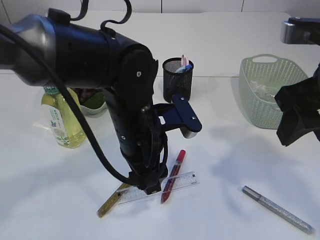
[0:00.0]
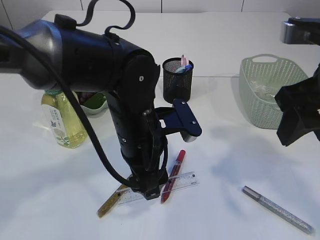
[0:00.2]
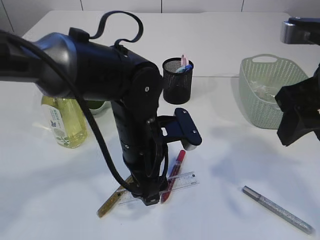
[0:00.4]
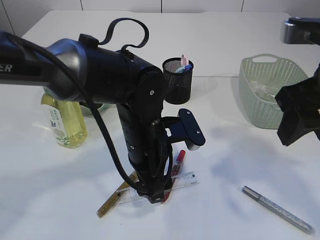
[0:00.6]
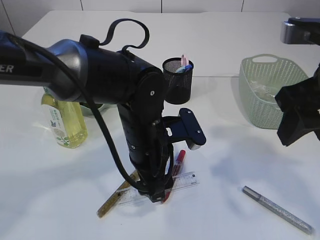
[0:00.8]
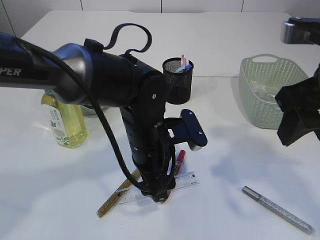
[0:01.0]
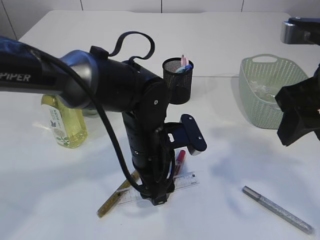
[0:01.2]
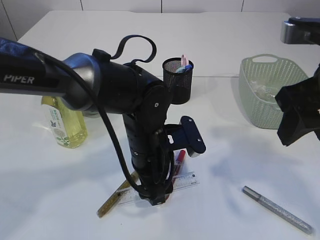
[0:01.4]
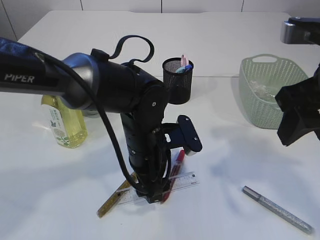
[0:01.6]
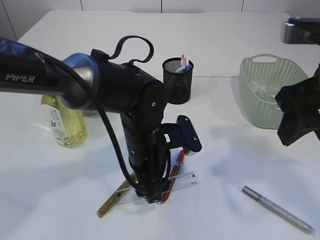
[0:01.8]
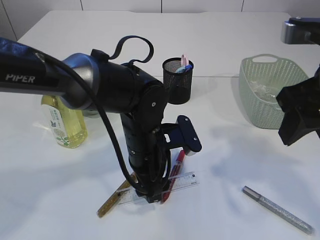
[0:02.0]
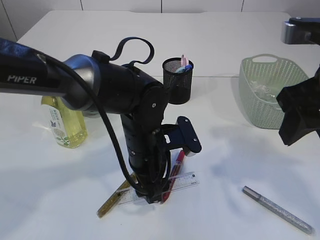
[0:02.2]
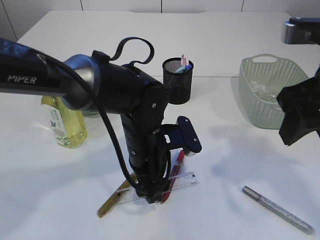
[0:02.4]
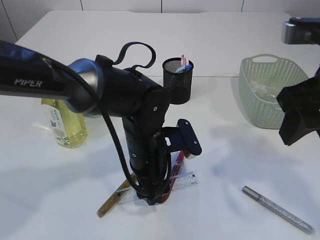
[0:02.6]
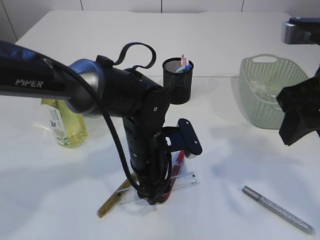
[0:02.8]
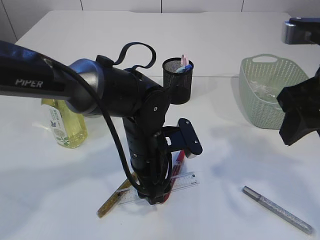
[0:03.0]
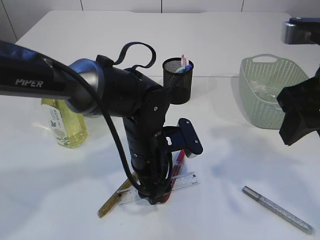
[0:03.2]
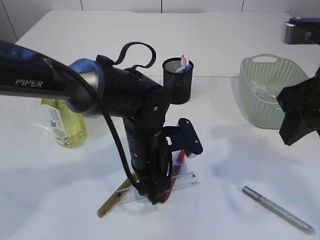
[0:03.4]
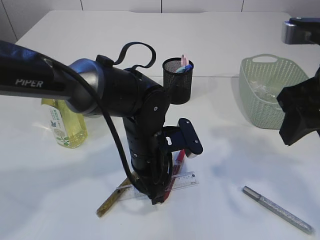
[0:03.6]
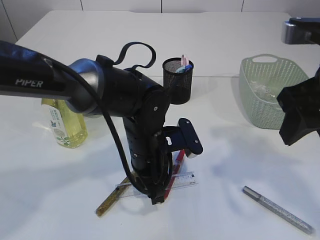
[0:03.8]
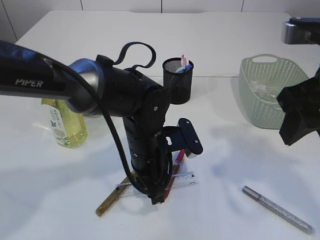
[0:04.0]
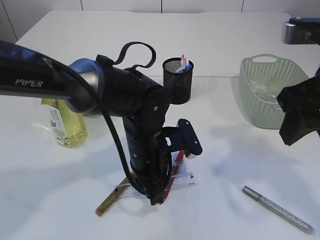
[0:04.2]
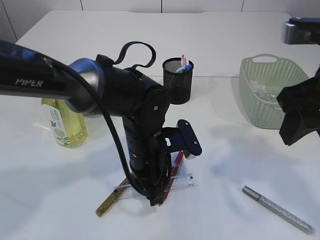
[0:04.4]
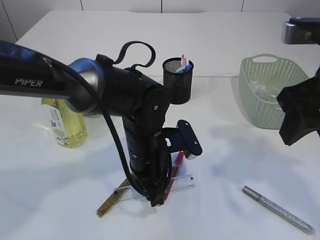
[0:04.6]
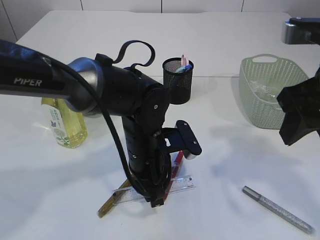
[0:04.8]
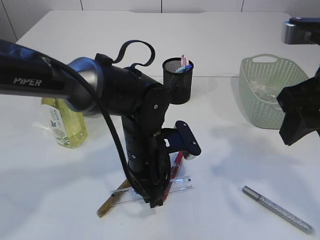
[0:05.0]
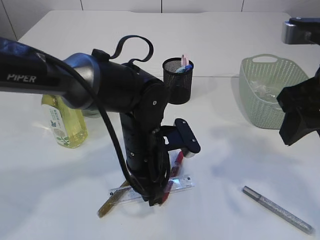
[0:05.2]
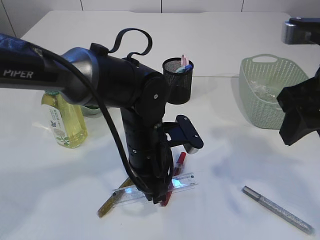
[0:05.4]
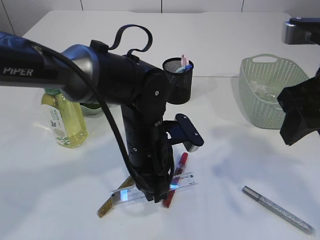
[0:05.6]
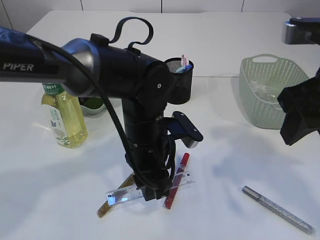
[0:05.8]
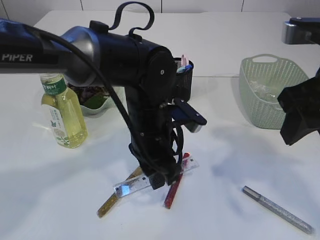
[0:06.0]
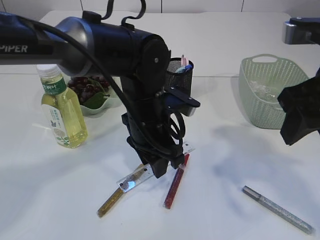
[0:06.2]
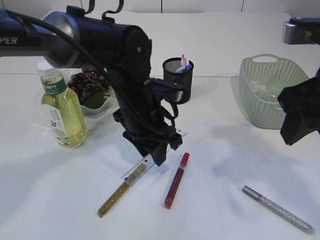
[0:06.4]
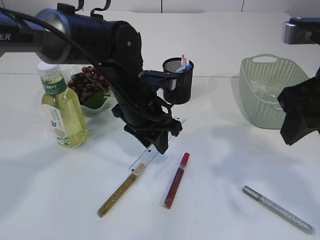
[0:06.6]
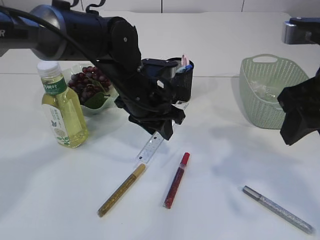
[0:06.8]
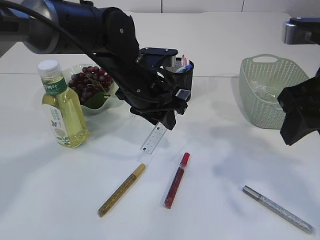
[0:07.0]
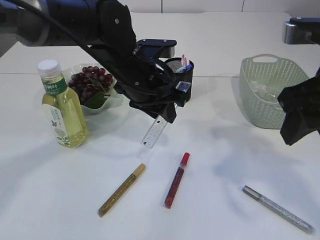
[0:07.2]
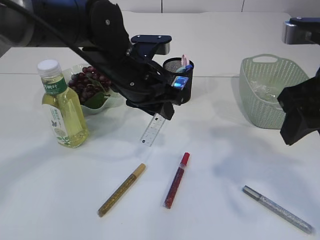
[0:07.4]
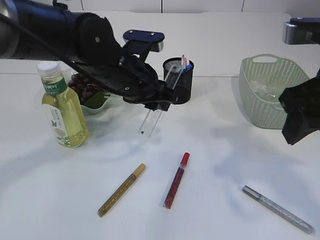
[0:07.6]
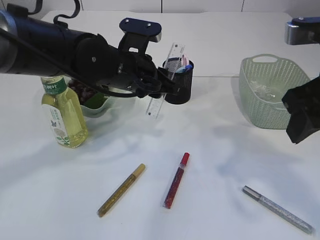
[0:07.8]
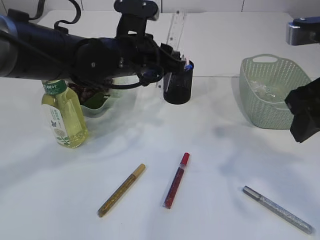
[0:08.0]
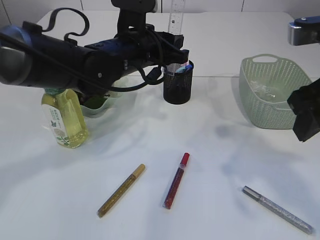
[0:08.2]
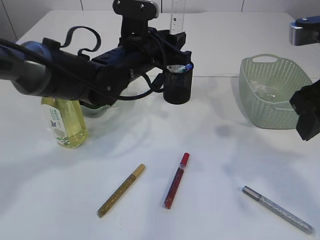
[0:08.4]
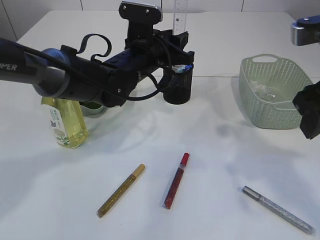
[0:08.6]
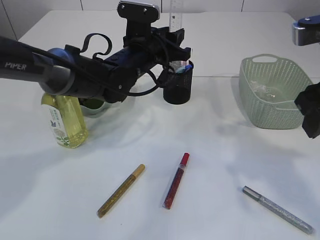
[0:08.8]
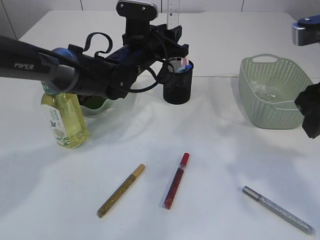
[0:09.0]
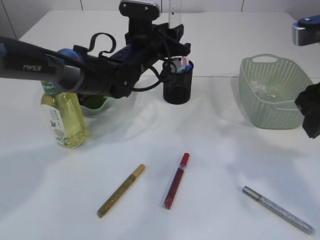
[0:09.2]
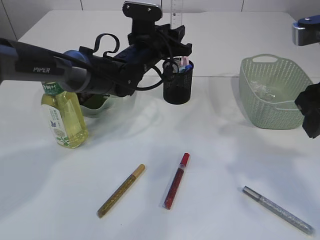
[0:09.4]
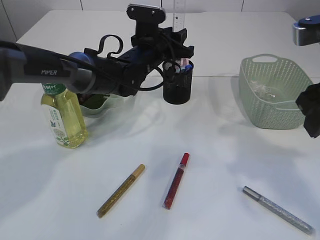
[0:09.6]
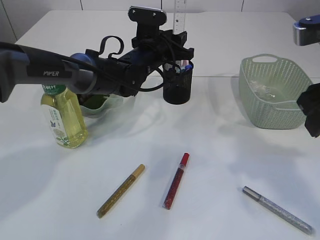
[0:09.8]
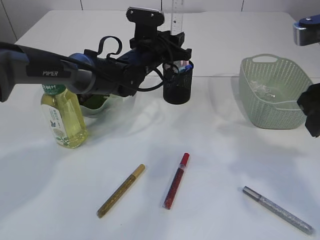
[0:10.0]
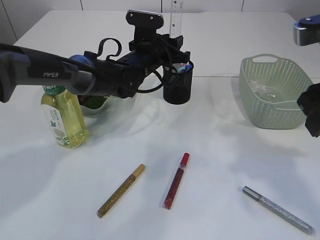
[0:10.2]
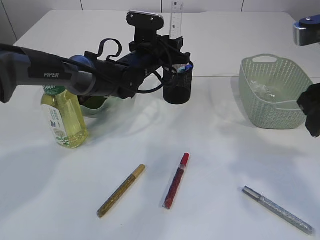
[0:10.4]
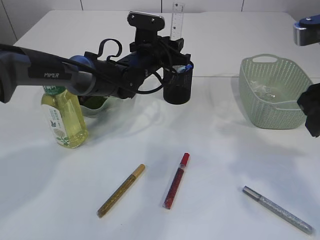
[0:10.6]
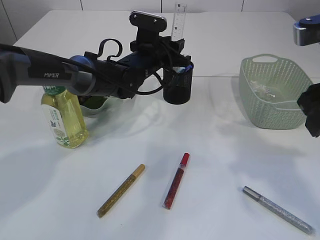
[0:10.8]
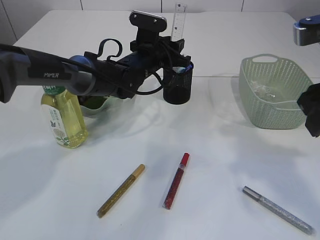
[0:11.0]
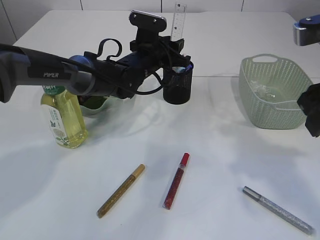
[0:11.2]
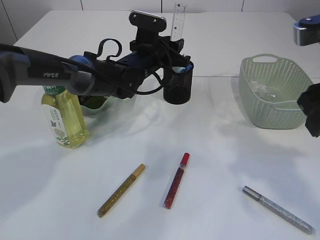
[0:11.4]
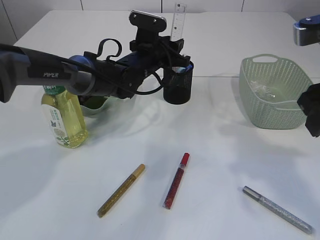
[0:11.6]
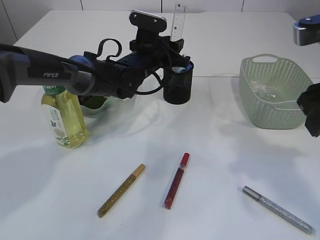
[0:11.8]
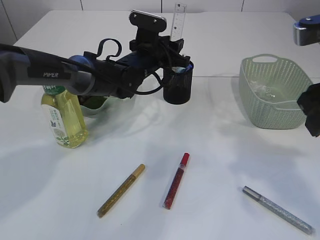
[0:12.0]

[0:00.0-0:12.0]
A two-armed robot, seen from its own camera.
Step, 0:00.0 to 0:06.0: pick up the ruler.
0:00.0 to 0:01.6: The left gripper goes some 5 cm downward.
0:01.6 to 0:03.0: Both grippers stay about where they are.
0:03.0 to 0:04.4: The left gripper closes its fingers.
0:04.4 to 0:06.0: The grippers make only small movements.
0:06.0 to 0:07.6: The left gripper moves forward and upward, some 10 cm.
0:07.6 to 0:09.0: The left gripper shifts roughly 10 cm forward.
0:09.0 to 0:10.4: The grippers stay close to where they were, moving slightly.
0:10.4 to 0:12.0: Both grippers stay about where they are.

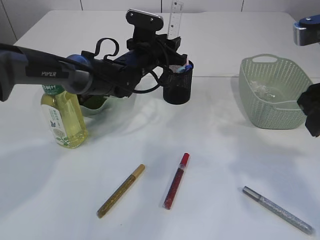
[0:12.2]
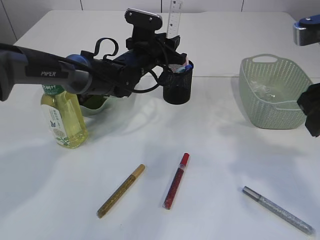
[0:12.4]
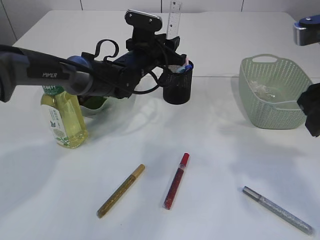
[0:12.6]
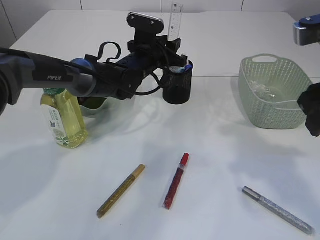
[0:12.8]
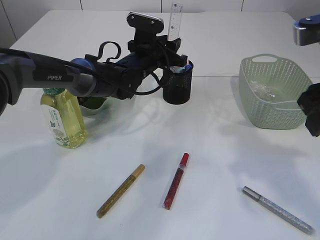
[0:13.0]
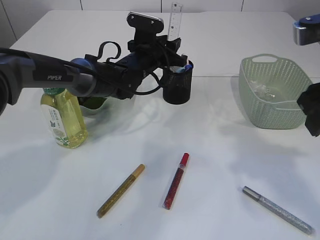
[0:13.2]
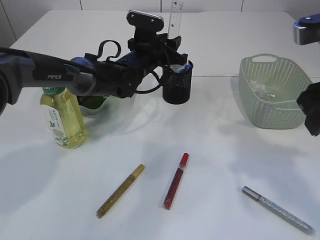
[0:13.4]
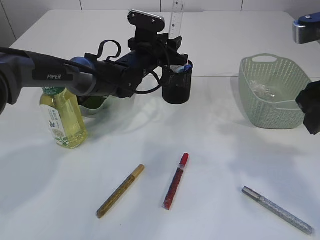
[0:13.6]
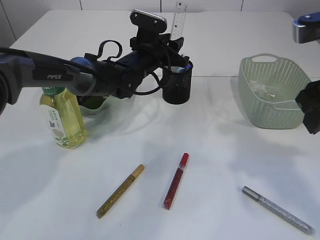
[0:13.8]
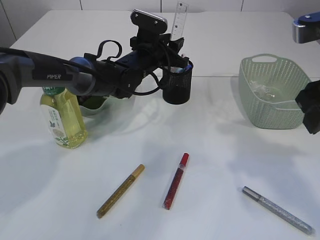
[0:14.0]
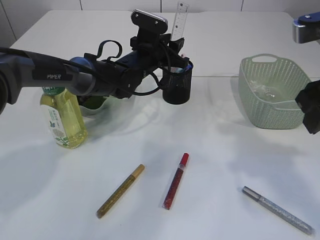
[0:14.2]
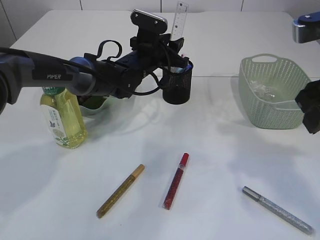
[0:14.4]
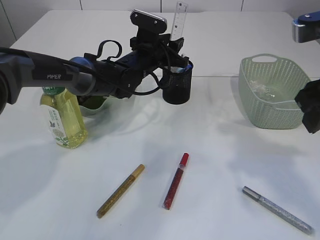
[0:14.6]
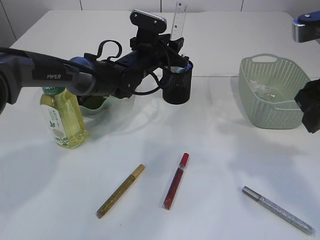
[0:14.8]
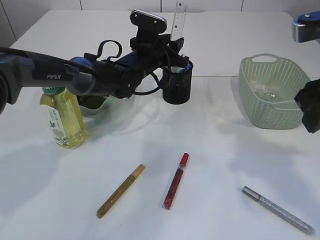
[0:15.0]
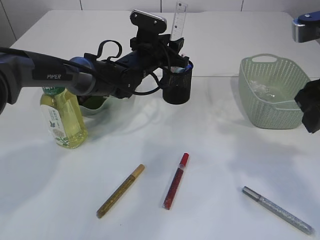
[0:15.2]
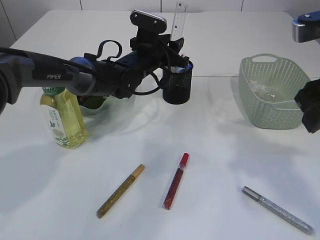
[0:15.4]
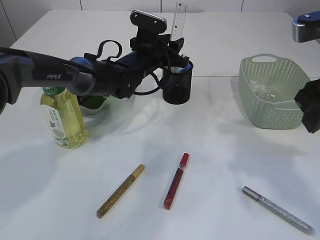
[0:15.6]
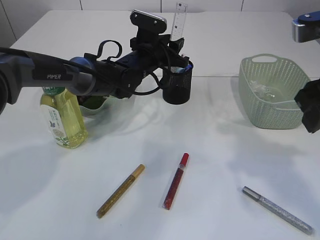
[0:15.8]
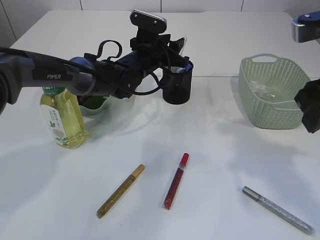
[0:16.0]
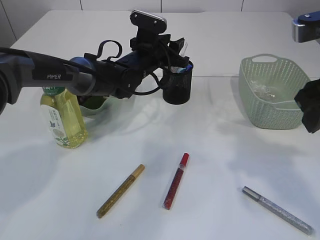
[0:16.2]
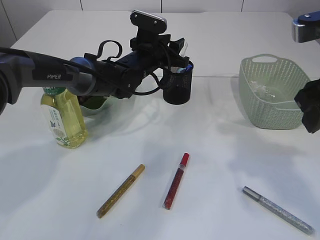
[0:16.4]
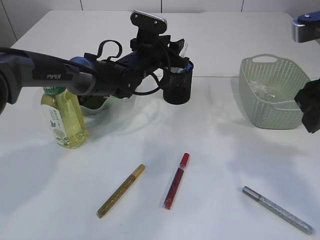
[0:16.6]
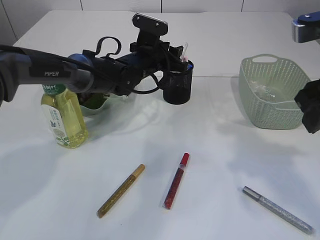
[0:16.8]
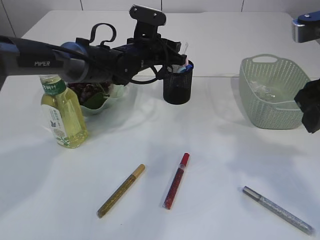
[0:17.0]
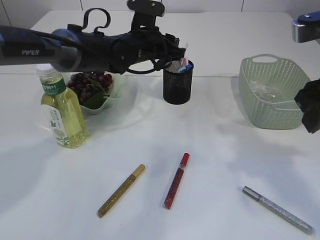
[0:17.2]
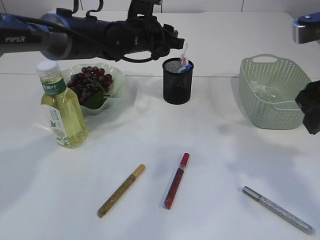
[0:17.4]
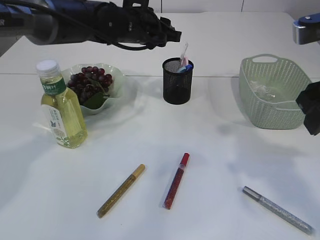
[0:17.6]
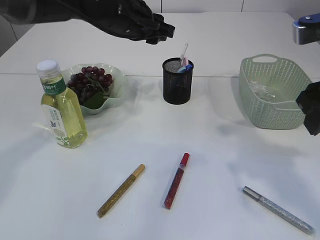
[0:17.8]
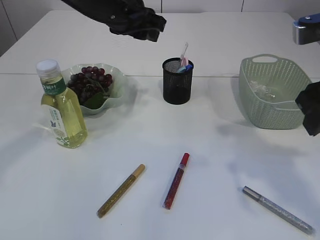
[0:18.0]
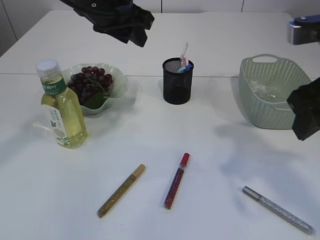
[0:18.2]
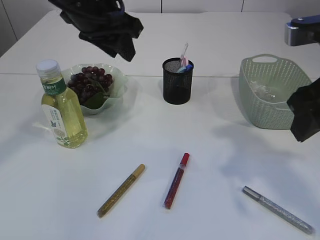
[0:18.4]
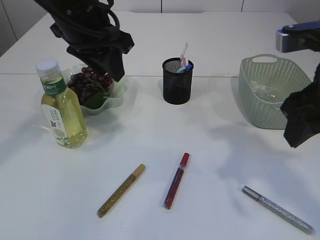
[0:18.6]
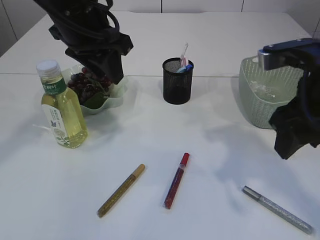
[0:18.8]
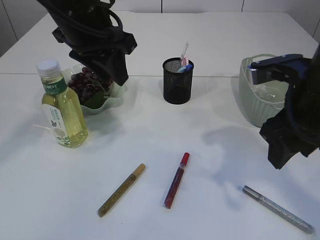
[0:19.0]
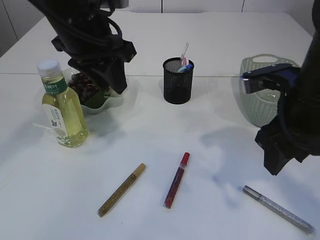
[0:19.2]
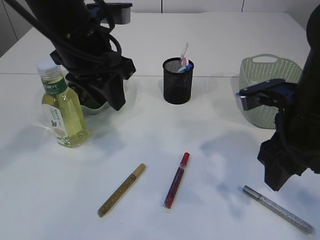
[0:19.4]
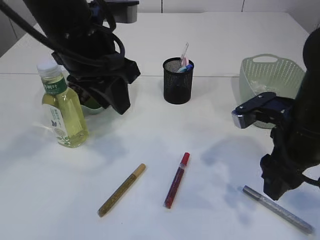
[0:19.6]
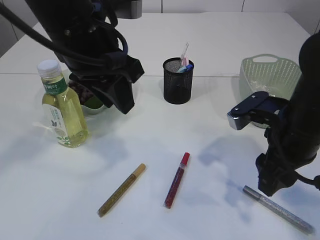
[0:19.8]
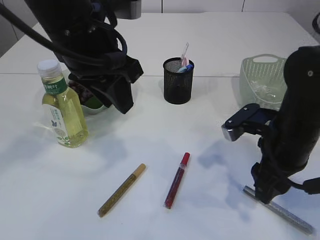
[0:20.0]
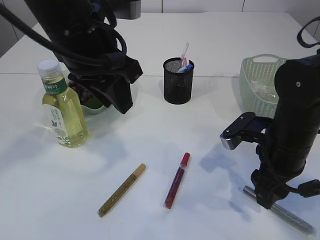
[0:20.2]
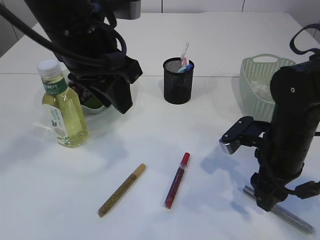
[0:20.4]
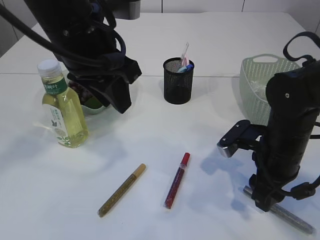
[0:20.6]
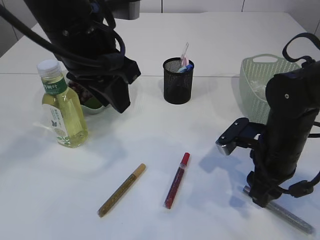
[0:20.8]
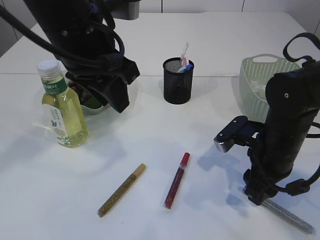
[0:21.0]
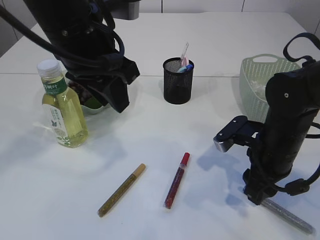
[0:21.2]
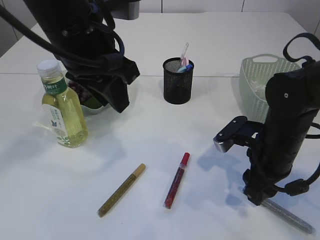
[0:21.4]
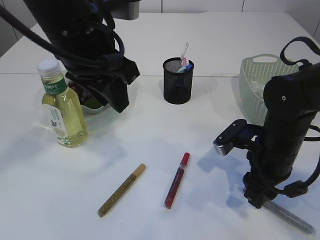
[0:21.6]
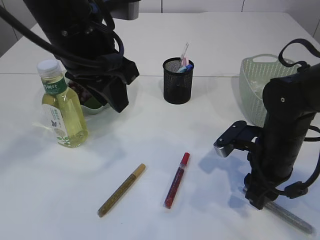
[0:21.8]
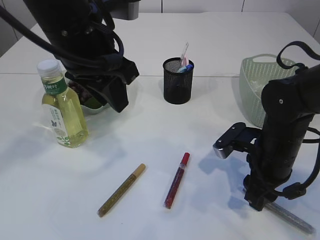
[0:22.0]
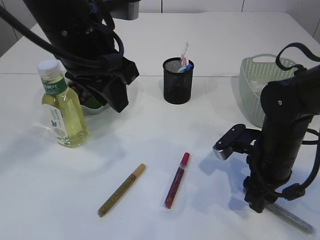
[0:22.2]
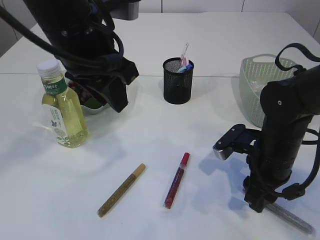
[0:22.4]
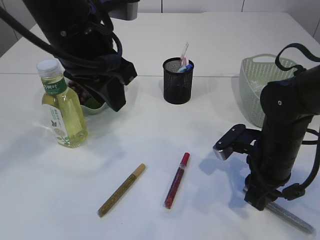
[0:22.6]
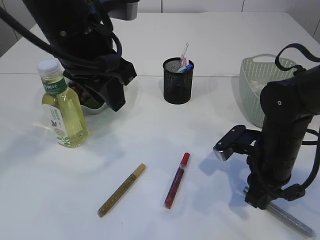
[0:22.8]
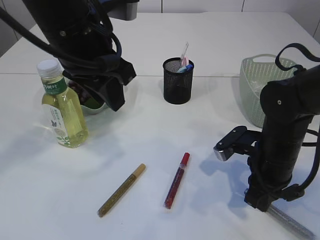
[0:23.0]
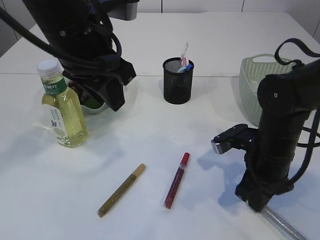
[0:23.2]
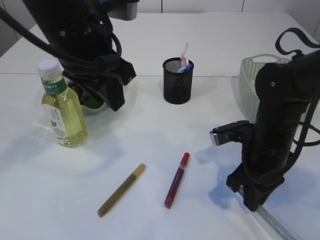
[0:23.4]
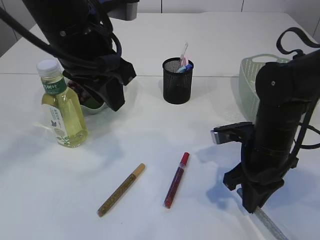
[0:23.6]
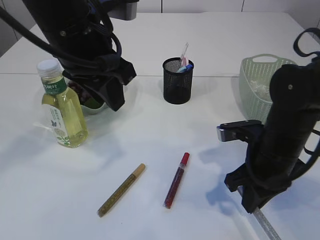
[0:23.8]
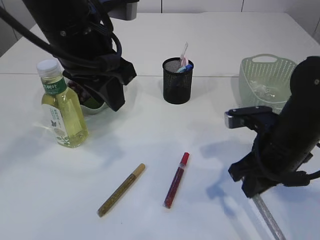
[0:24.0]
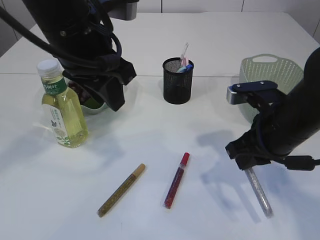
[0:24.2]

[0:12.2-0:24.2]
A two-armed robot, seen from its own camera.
Step, 0:12.2 to 0:17.2: Place the ruler into the pen holder.
Step, 0:17.4 to 0:24.2: pick up the silver glue.
0:12.2 to 0:16.6: The two grippers keep their place.
0:16.6 to 0:18.2: The left gripper heads upward and backward, covering about 20 cm.
0:18.2 to 0:19.8: The right gripper goes approximately 10 cm downward. Meanwhile the left gripper goes some 10 cm backward.
0:19.8 to 0:21.2: The right gripper moves downward, roughly 5 cm.
0:21.2 to 0:22.6: The grippers stay close to where they were, moving slightly.
0:22.6 to 0:24.2: The right gripper moves upward, about 5 cm, and closes.
